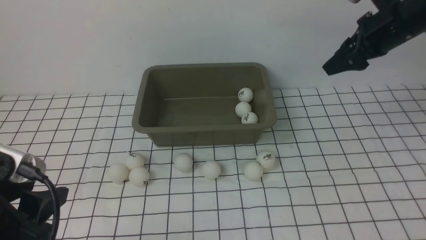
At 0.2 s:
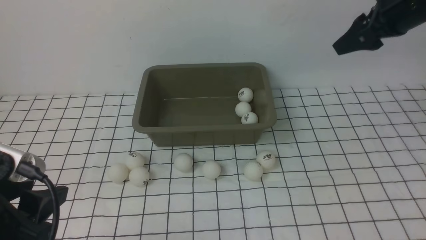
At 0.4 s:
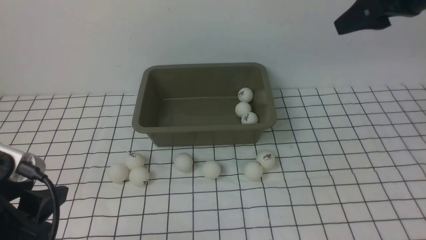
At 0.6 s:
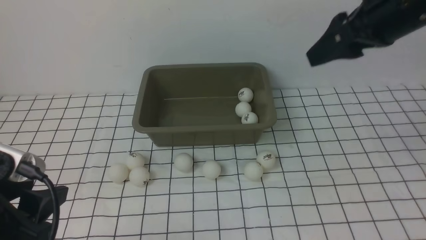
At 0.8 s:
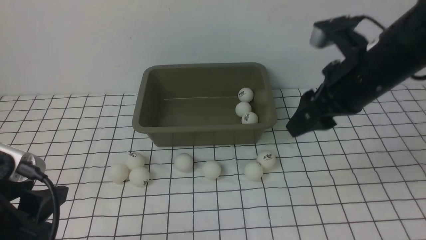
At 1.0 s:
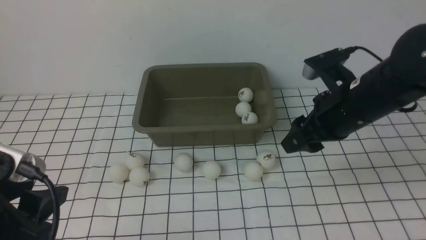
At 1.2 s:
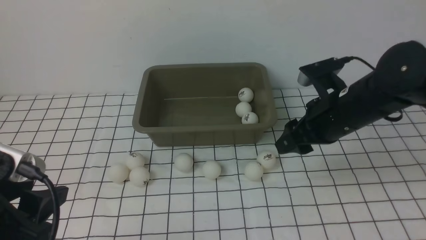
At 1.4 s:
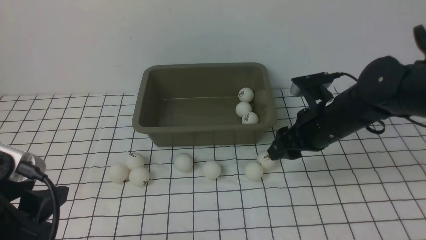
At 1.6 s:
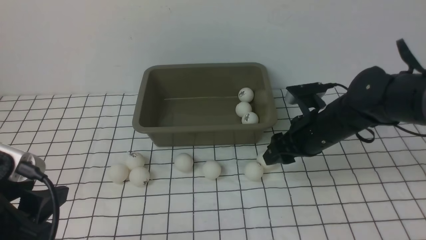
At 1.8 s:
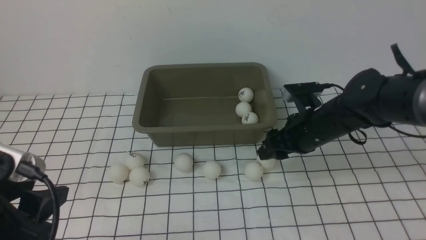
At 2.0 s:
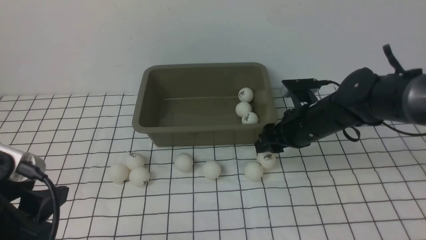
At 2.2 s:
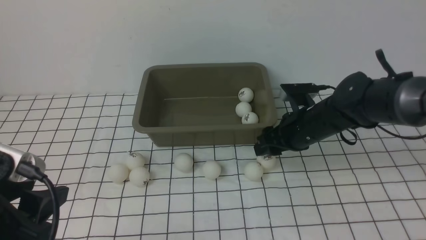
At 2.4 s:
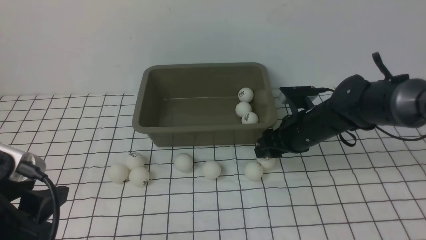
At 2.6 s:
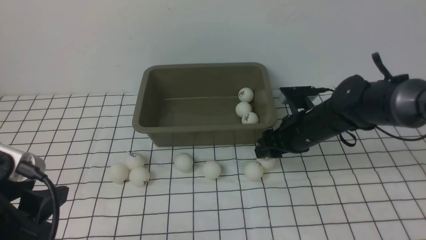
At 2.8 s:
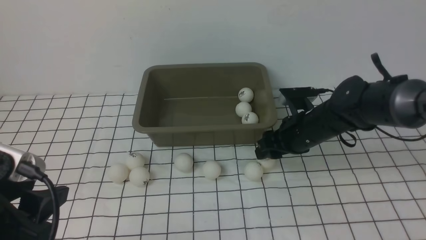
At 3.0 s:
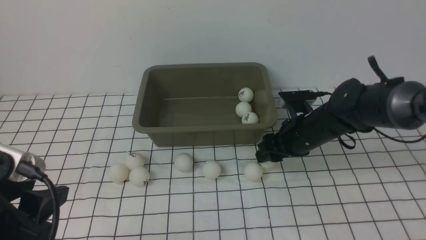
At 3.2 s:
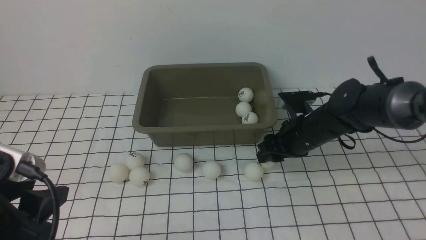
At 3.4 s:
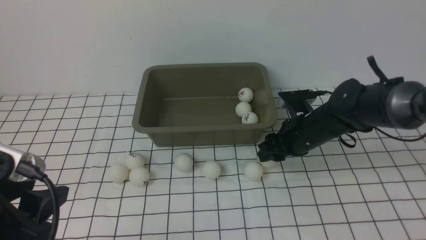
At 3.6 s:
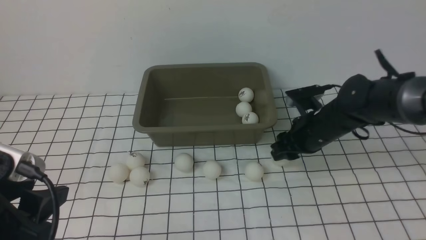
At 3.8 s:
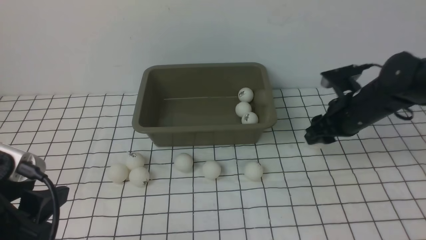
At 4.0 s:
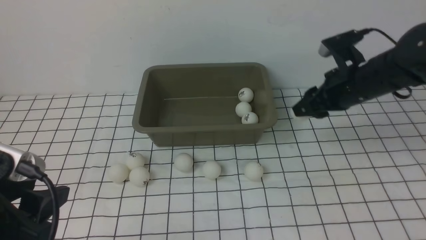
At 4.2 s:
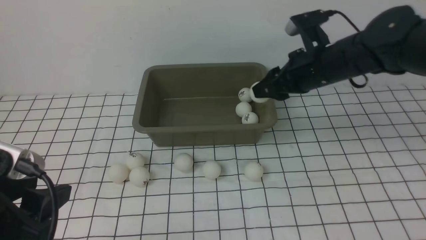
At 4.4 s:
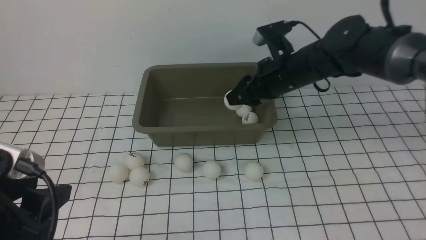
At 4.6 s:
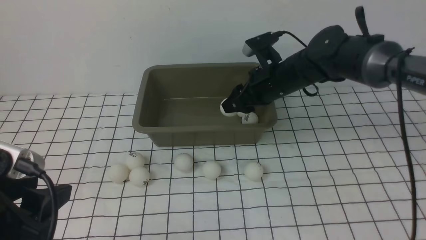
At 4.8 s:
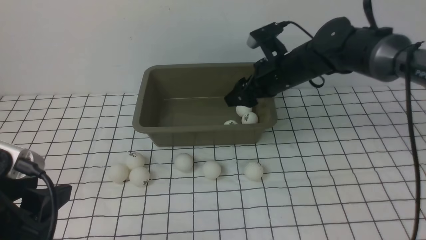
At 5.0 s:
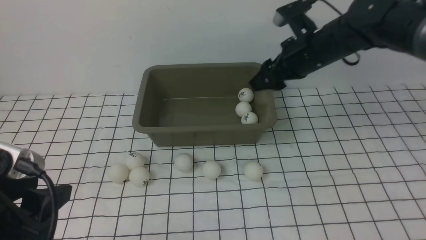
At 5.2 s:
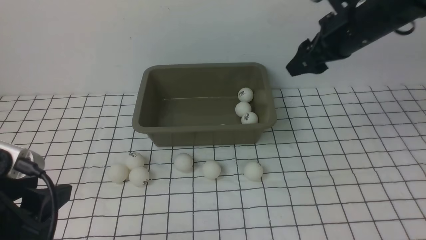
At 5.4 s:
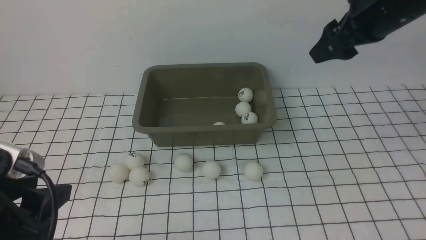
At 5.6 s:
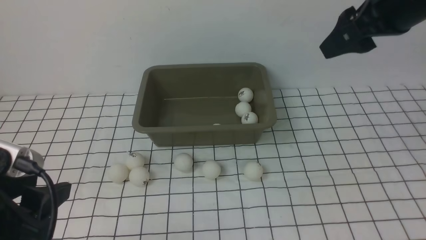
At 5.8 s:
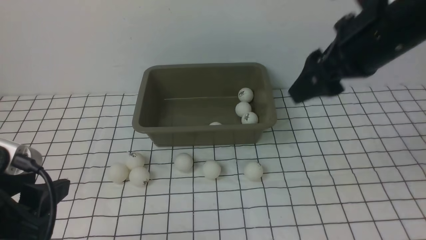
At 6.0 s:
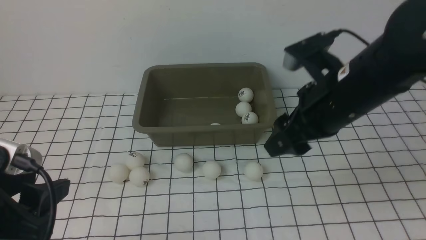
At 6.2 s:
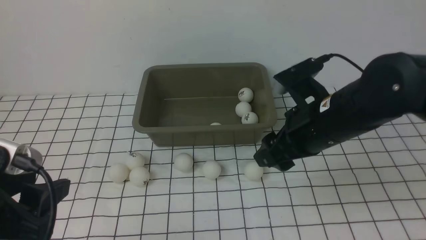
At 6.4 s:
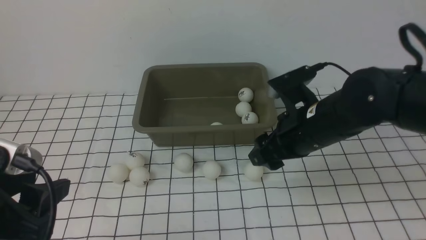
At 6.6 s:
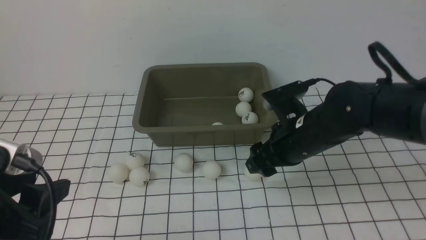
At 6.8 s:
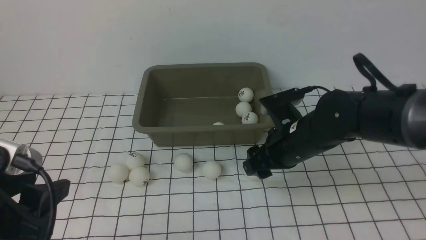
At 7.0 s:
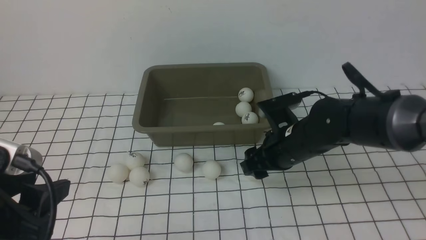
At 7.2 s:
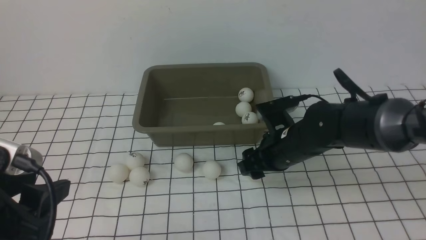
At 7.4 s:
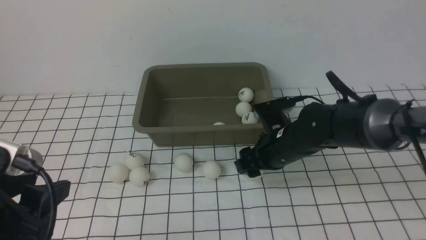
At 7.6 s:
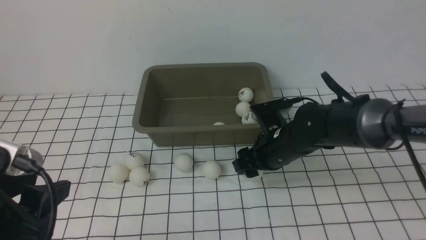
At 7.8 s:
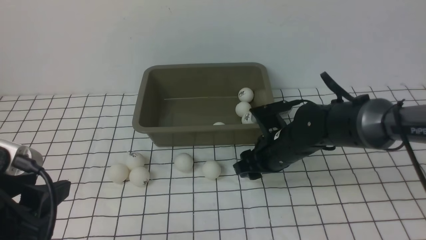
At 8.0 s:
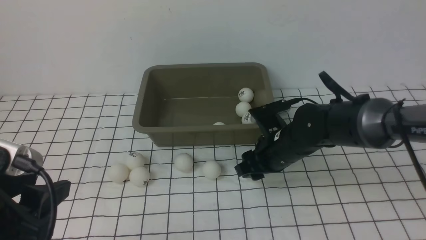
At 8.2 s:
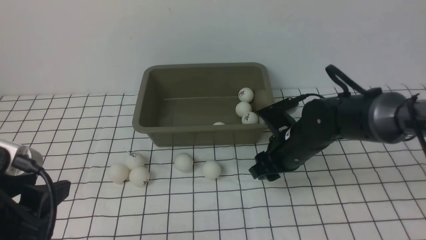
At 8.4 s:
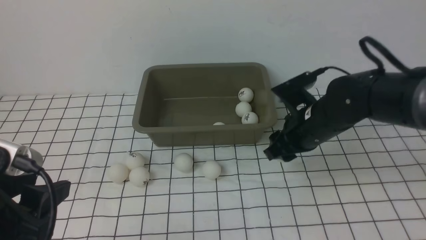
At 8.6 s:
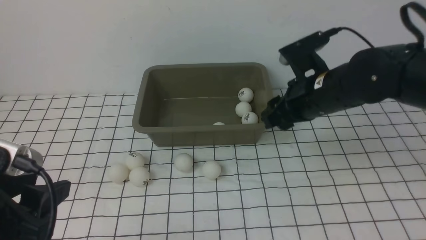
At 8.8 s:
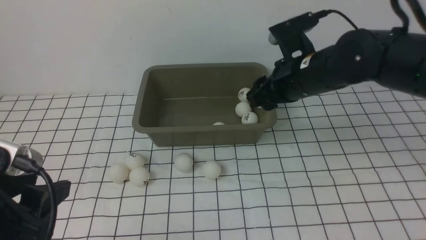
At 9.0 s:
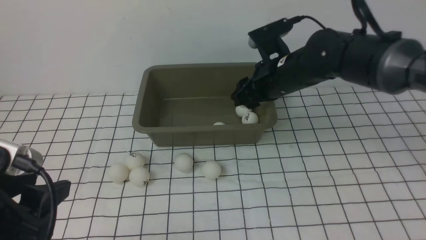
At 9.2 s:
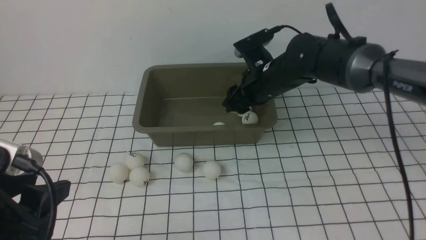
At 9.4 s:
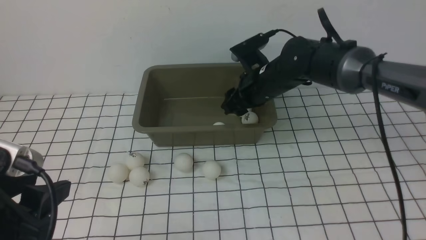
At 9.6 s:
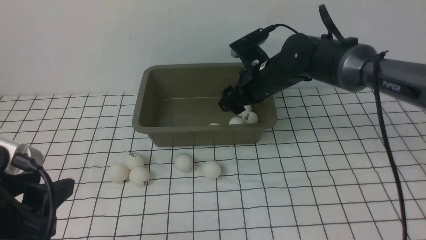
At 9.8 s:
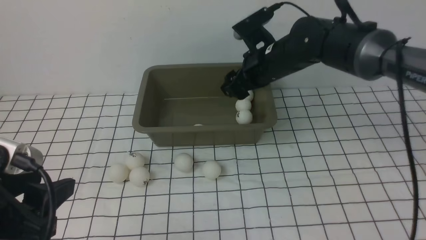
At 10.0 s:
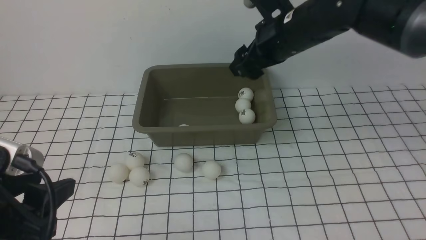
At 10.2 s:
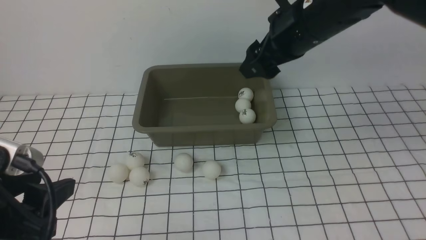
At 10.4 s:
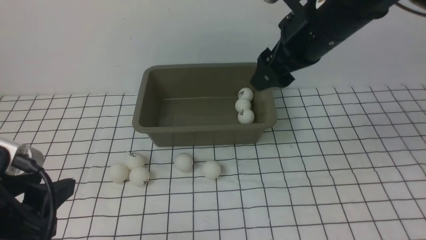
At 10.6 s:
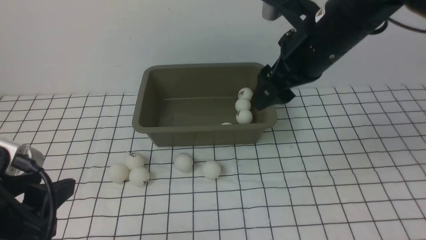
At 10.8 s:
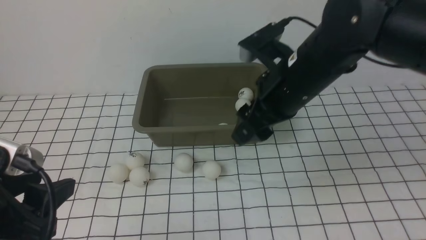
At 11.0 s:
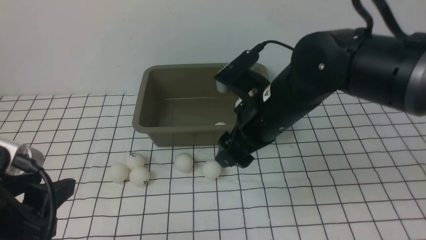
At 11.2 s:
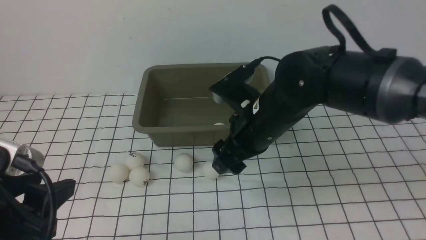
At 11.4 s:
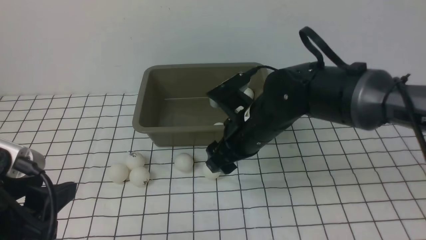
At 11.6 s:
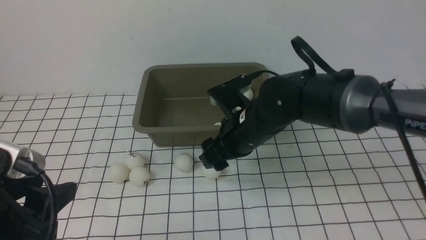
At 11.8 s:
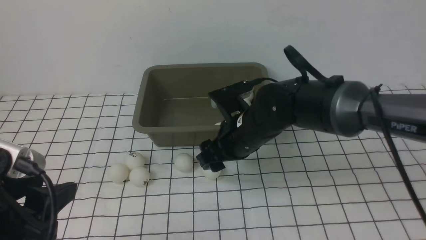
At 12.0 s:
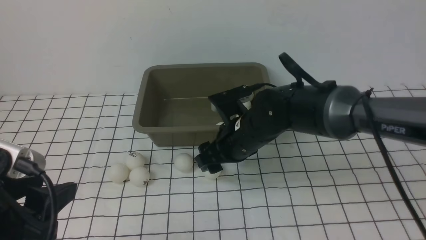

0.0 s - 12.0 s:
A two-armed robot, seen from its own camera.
Step, 0.0 s - 3.6 s: use the right arm to clamp the table tennis ball closest to it.
Step, 4.0 s - 4.8 s: use the right arm to put the table tennis ball into the box.
Step, 5.0 s - 8.2 s: use the right arm to clamp the table tennis ball closest to it.
Step, 8.4 s - 9.6 s: use the right arm to put the table tennis ball into the box.
0.0 s - 1.6 s: The right gripper travels downward, to the left and backward by roughly 20 cm.
1.6 s - 3.0 s: The grippers stay close to where they were, moving slightly.
3.0 s - 4.4 s: The right gripper moves upward, approximately 10 cm.
4.4 s - 6.0 s: The right gripper heads backward and upward, covering about 15 cm, and opens up.
6.0 s - 7.6 s: The right gripper is displaced downward by approximately 15 cm.
7.6 s - 9.0 s: The right gripper goes about 10 cm upward and forward.
9.0 s - 10.4 s: The right gripper moves upward and backward, about 10 cm, and opens its fingers.
10.4 s - 12.0 s: The right gripper travels downward and to the left by approximately 20 cm.

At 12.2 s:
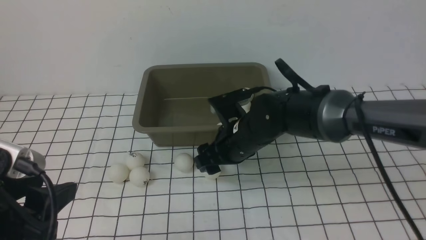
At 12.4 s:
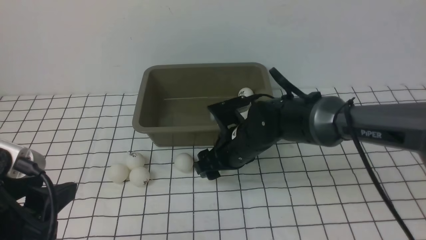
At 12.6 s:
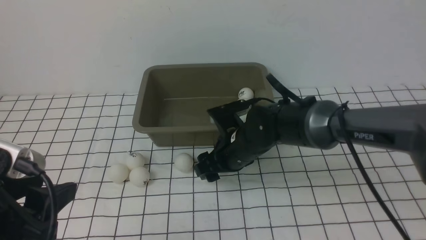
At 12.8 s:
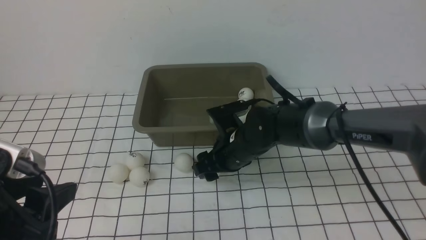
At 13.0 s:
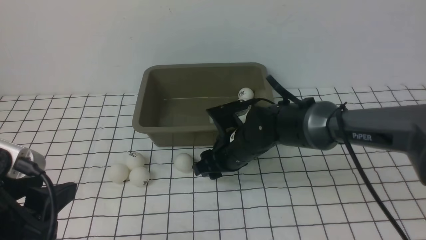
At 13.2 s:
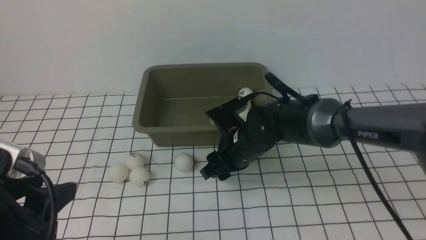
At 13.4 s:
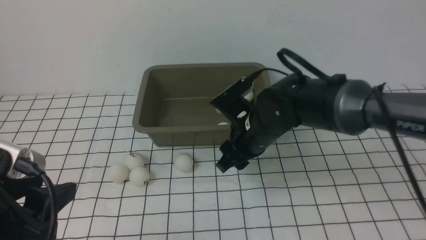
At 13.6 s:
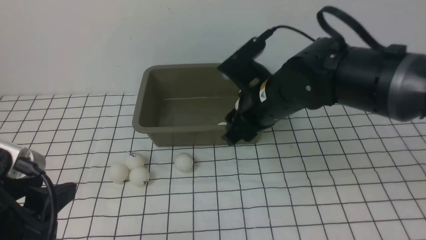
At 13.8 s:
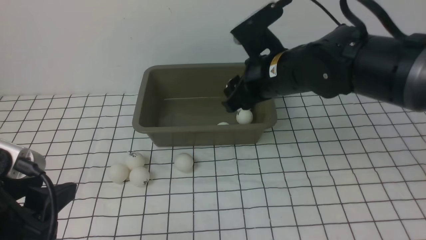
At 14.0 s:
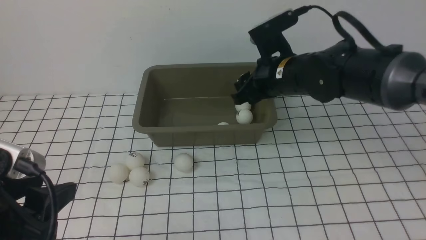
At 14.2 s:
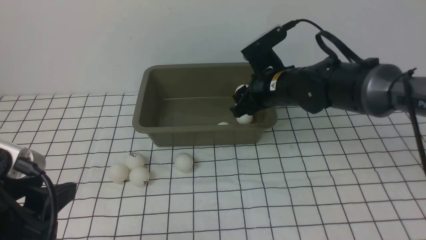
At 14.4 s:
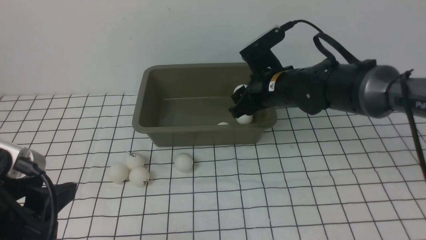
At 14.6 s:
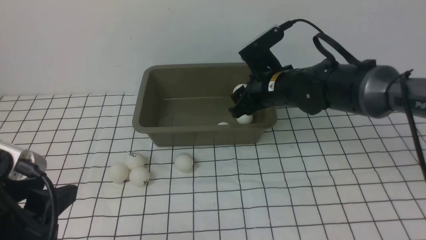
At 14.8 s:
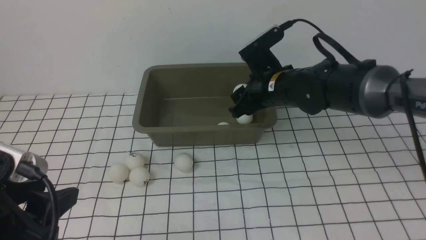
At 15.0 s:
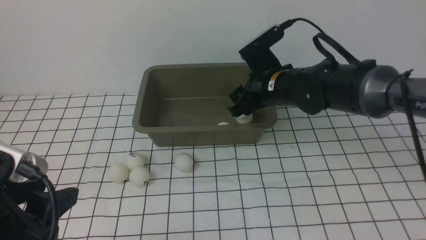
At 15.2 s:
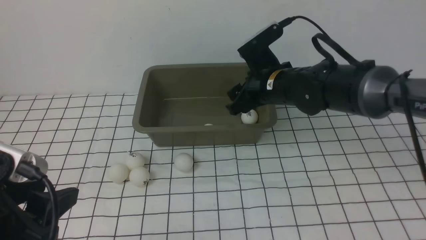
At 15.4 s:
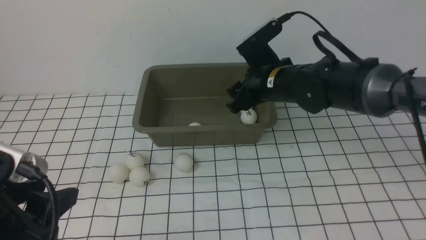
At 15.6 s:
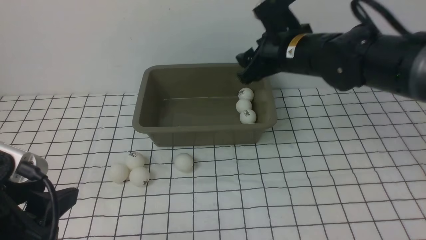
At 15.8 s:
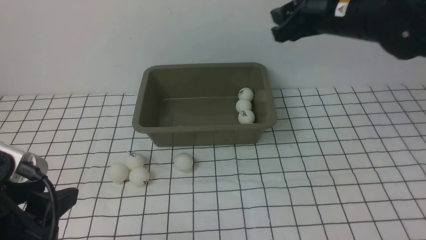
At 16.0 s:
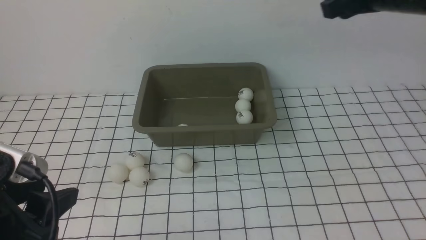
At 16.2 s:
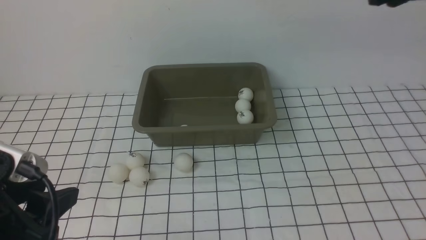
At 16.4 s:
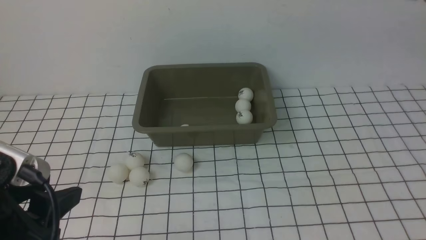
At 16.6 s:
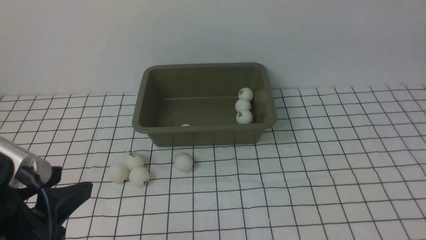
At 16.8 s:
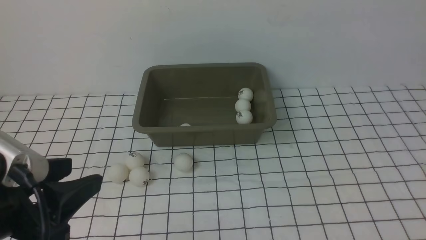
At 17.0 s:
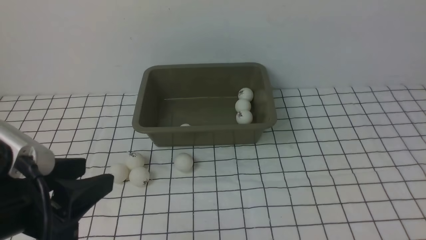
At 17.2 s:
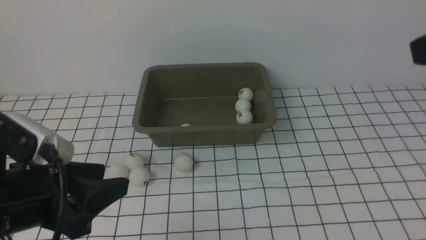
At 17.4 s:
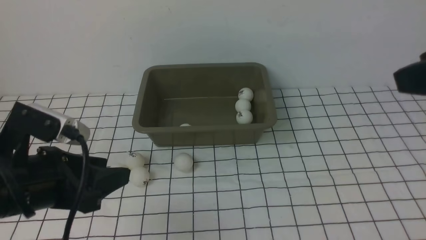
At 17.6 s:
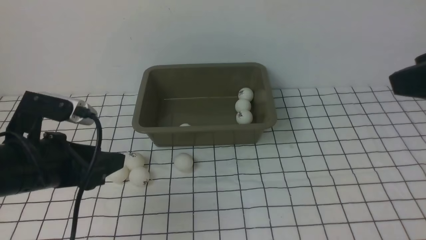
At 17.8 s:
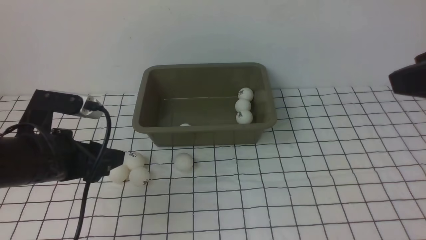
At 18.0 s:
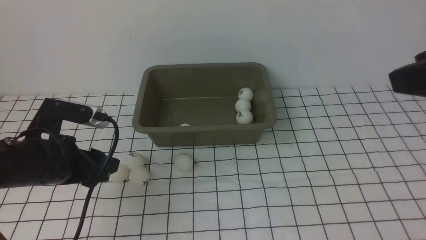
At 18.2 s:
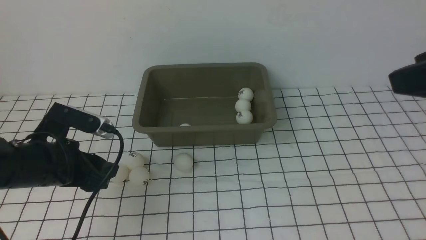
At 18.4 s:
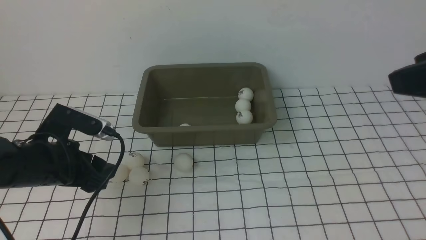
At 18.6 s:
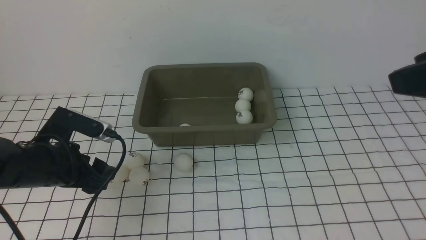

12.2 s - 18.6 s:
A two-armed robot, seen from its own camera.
Step, 13.6 s - 15.2 s: use the right arm to put the table tennis ball into the box.
12.2 s - 13.8 s: The right gripper goes approximately 10 cm upward and to the right, and closes its fingers.
13.8 s - 15.4 s: The grippers make only small movements.
15.4 s - 17.0 s: The right gripper heads backward, upward and to the right, covering about 35 cm.
17.0 s - 18.6 s: The left gripper goes roughly 15 cm forward and downward, and opens up.
